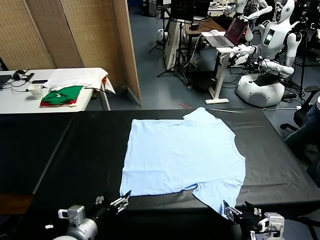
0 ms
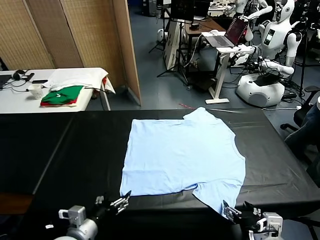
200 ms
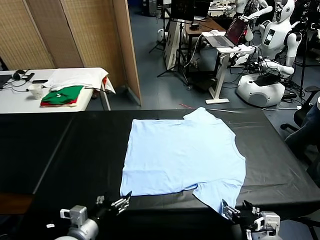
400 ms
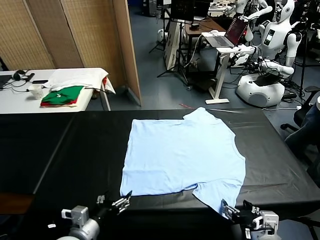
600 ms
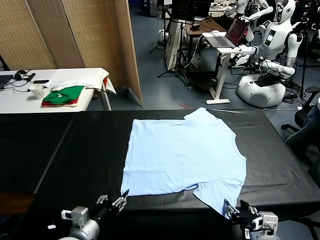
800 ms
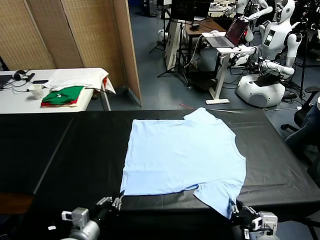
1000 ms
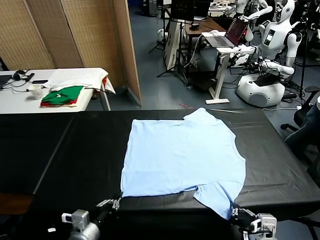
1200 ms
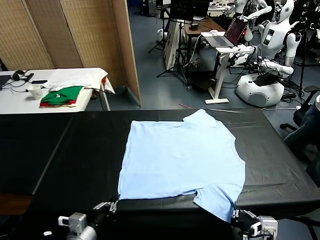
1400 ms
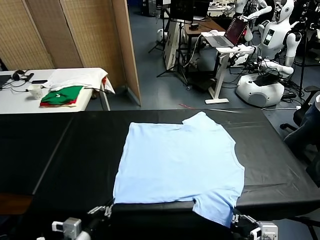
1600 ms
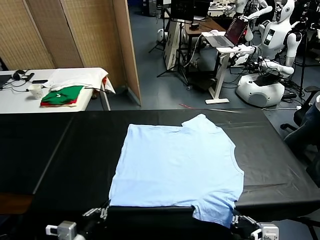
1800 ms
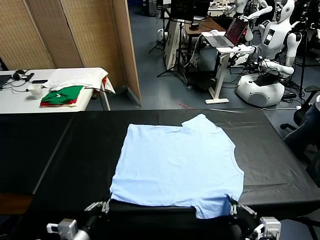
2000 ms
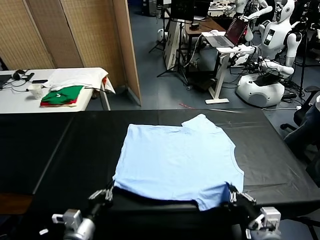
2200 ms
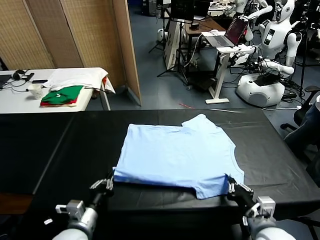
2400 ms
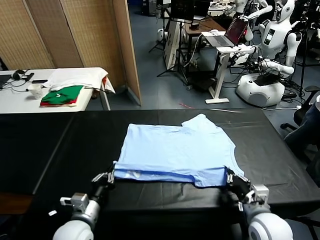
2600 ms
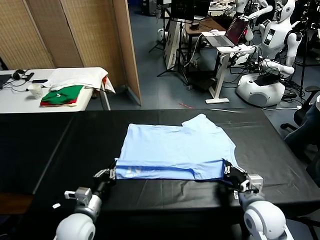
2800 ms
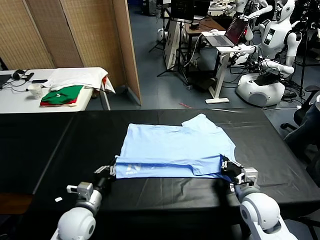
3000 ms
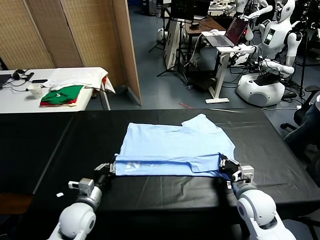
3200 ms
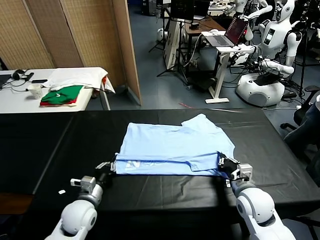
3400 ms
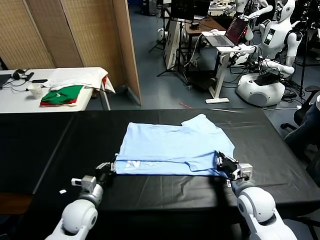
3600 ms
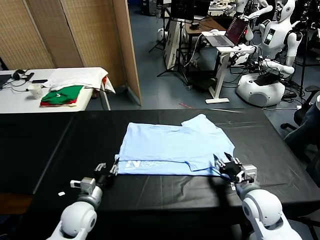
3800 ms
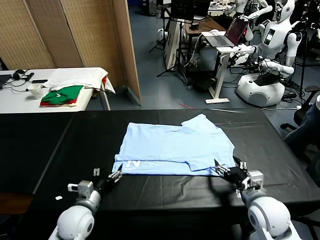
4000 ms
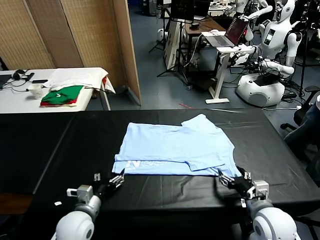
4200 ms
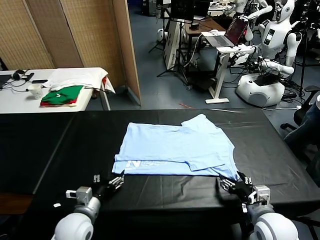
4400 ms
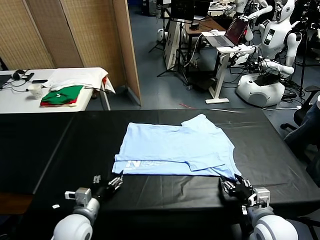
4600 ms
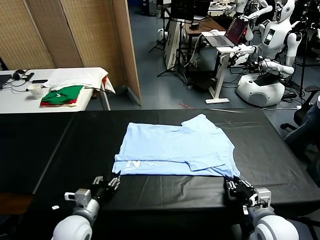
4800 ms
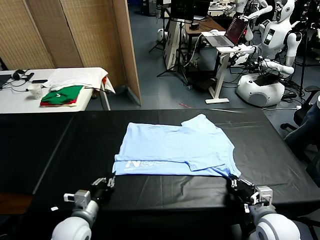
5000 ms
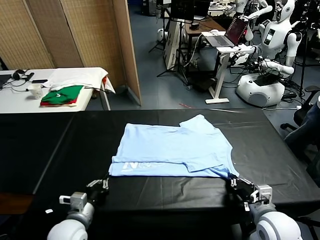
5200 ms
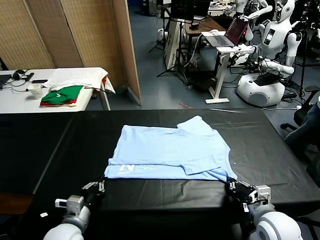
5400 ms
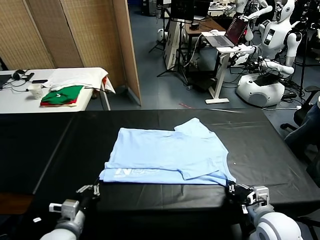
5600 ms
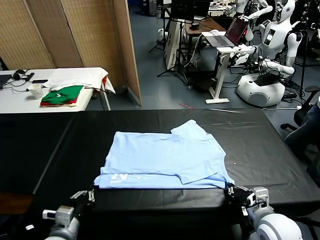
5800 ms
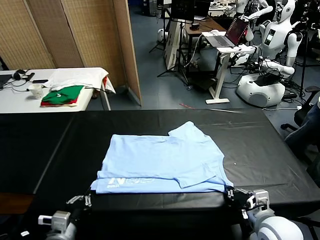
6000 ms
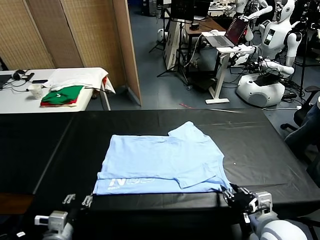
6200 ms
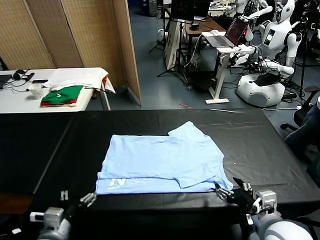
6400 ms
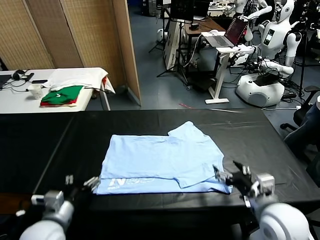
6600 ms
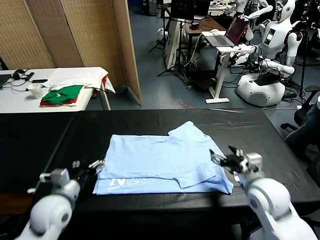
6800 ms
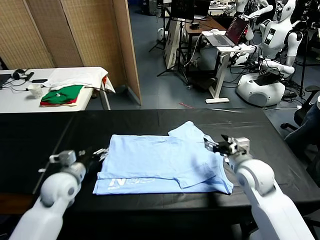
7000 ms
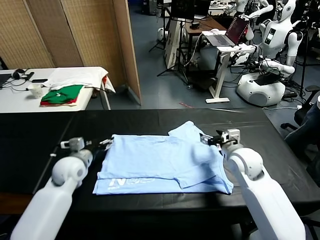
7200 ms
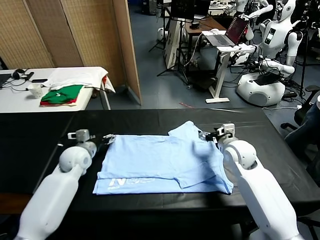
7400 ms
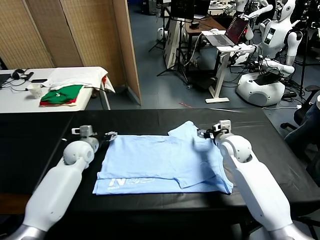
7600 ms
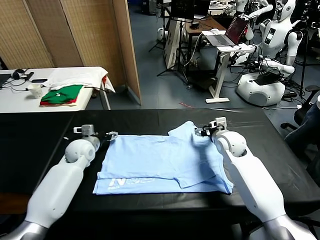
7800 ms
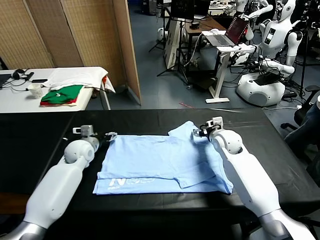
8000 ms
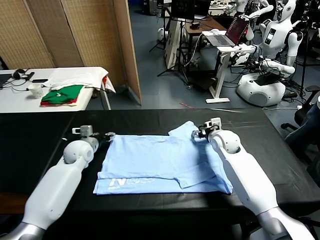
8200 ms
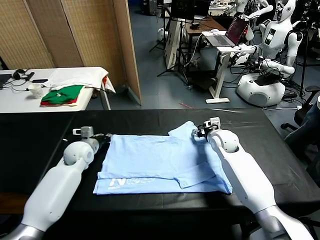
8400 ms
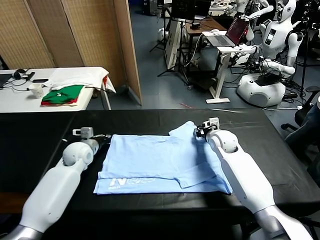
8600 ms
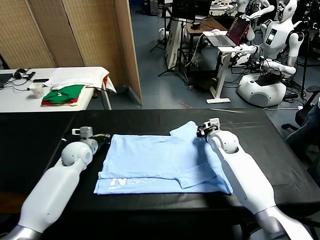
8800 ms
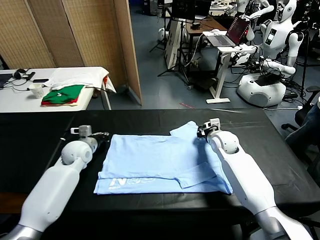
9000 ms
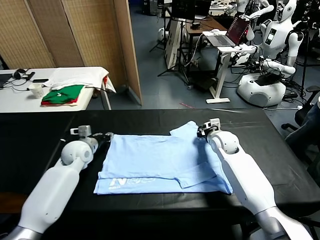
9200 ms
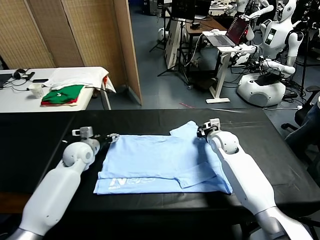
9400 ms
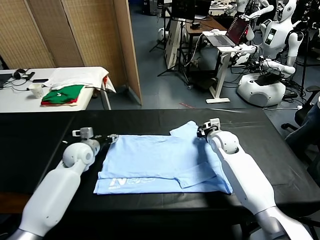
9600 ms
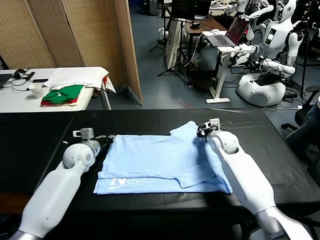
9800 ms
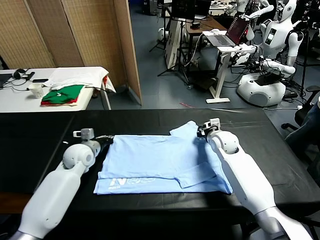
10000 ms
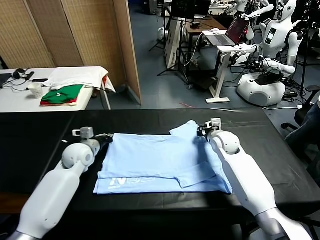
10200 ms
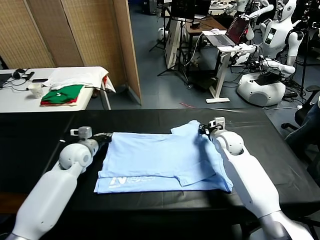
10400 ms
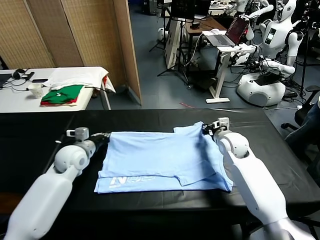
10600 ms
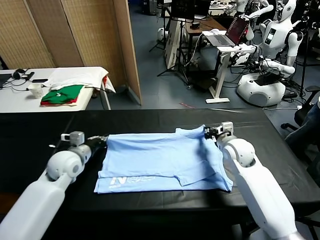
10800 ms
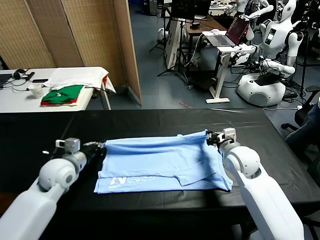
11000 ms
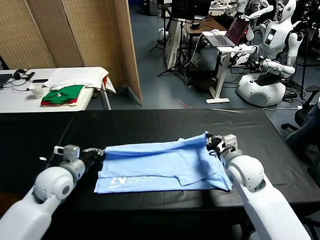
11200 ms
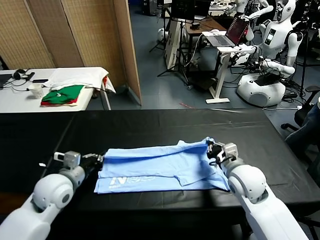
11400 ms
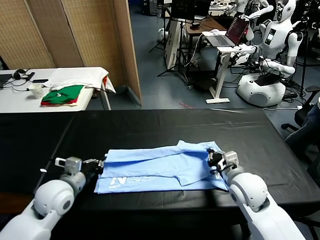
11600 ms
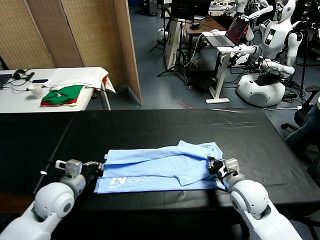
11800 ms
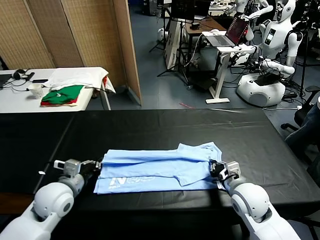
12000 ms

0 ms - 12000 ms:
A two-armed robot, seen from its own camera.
Task of the whole recording: fold and organize the clothes.
Step, 0 ms - 1000 ms: use both grippers simultaneously to clamp the lower edge of the clothing fabric.
Step, 1200 ms - 3600 ms: use both grippers to drag the lower edge of the fabric forward and fold it over the upper edge.
Step, 4000 ms - 6200 ms: Drag the clothes downward with both gripper.
Step, 6400 ms - 8600 ms: use both grippers simultaneously to clamp the upper edge of the clothing fabric.
1600 ms - 3000 ms: Both grippers move forward, roughly 15 cm.
3000 ms - 4400 ms: The left gripper opens its fingers. The right gripper travels backward by about 10 cm, and opens its fingers.
4400 ms - 6000 ms: The left gripper shifts roughly 10 cm backward, and closes, then reopens. Meanwhile the right gripper goes some 5 cm upward, and closes and opens again.
6000 ms - 7600 ms: Both grippers move forward, some 30 cm. The left gripper opens its fingers.
7600 ms - 9000 ms: The left gripper closes. The right gripper closes.
9000 ms - 10400 ms: The left gripper closes, while the right gripper moves about 5 cm.
10400 ms - 12000 ms: The grippers both shift backward by about 15 cm.

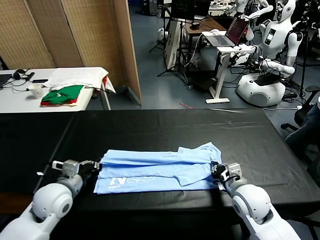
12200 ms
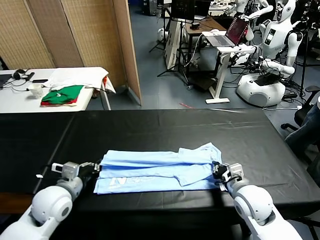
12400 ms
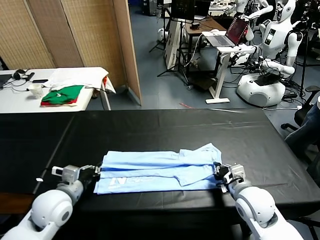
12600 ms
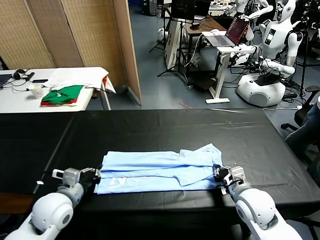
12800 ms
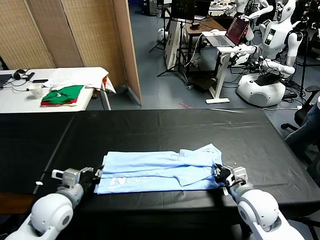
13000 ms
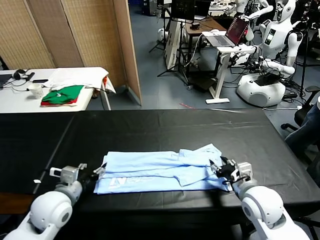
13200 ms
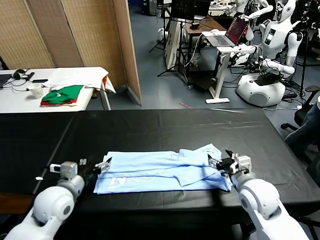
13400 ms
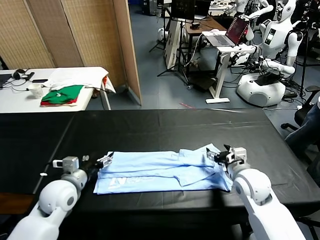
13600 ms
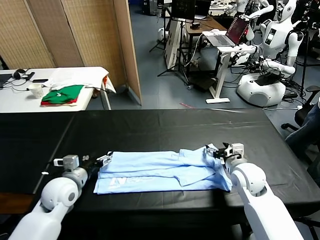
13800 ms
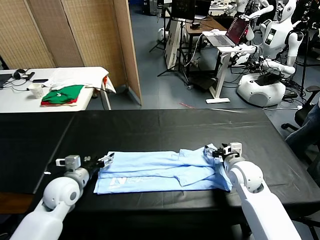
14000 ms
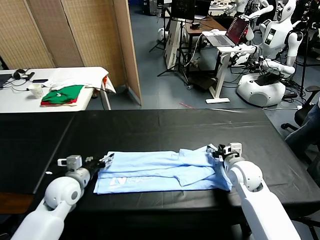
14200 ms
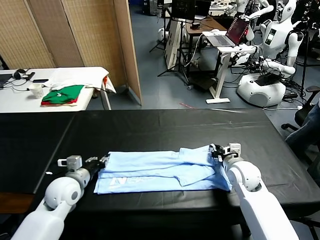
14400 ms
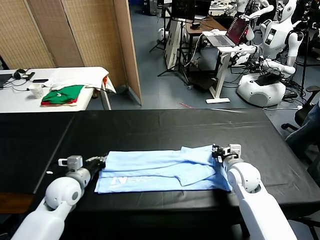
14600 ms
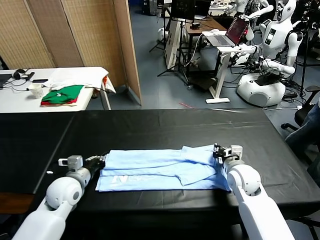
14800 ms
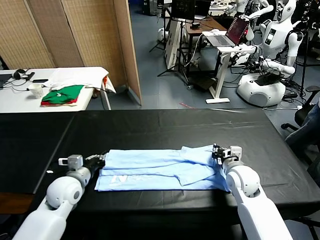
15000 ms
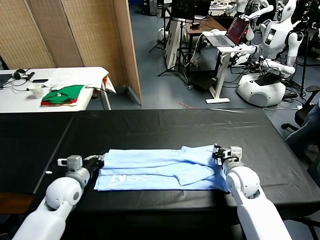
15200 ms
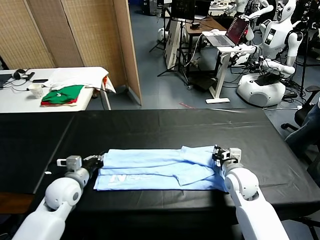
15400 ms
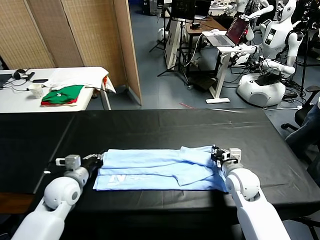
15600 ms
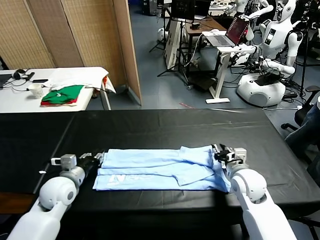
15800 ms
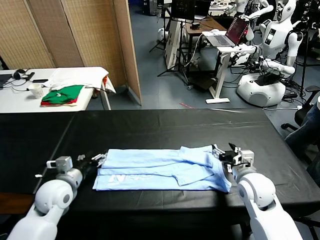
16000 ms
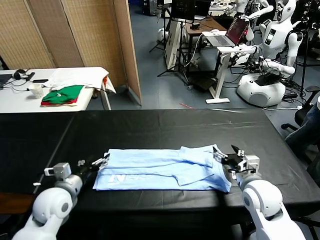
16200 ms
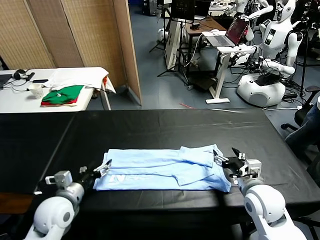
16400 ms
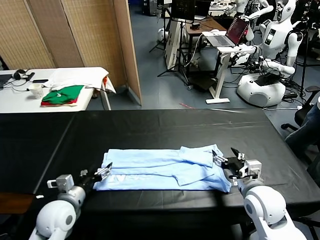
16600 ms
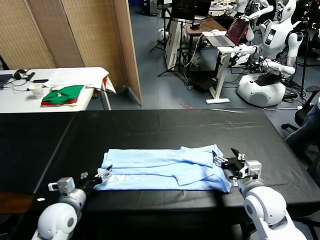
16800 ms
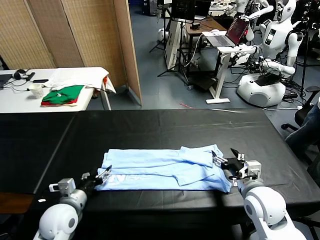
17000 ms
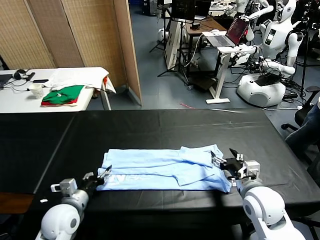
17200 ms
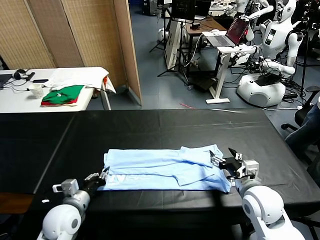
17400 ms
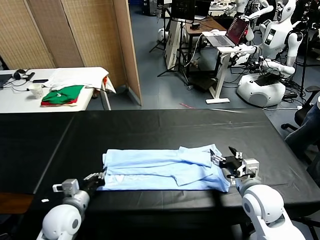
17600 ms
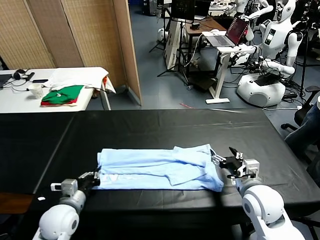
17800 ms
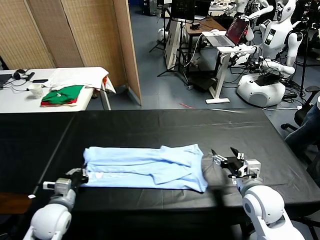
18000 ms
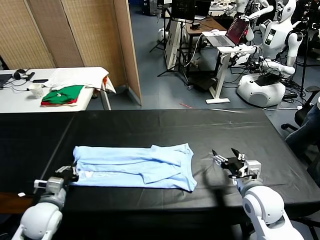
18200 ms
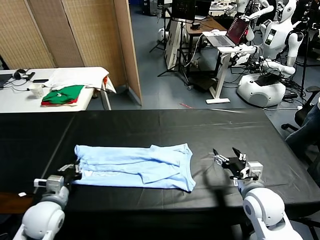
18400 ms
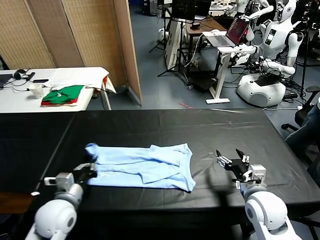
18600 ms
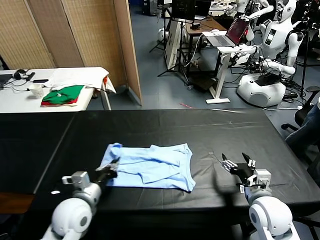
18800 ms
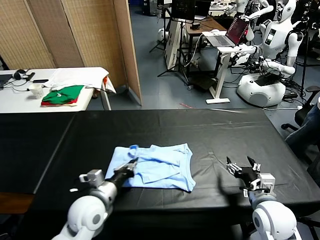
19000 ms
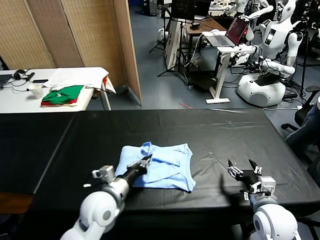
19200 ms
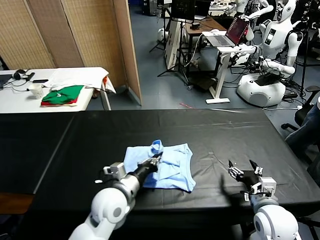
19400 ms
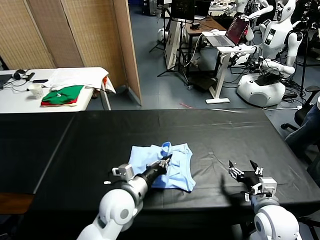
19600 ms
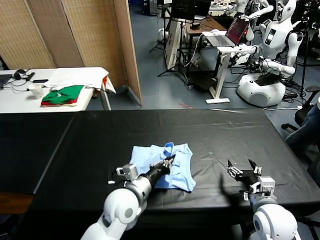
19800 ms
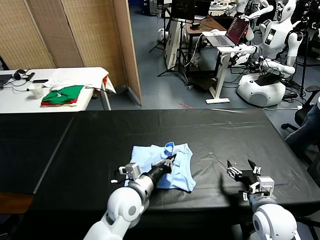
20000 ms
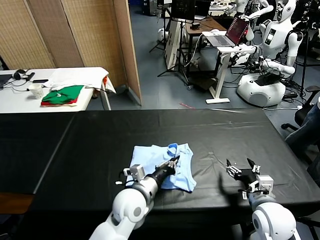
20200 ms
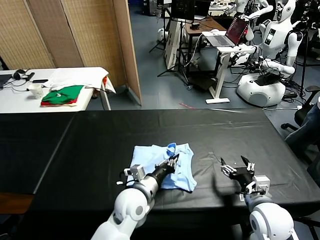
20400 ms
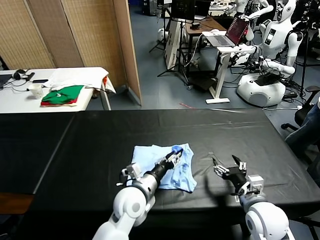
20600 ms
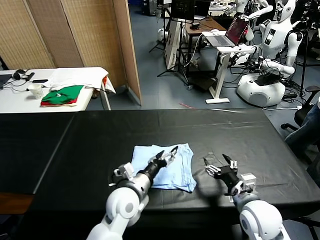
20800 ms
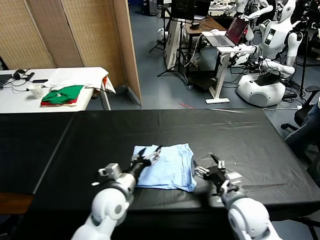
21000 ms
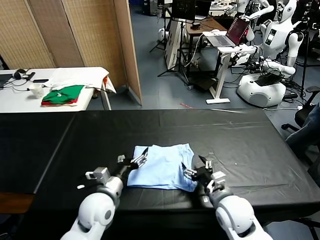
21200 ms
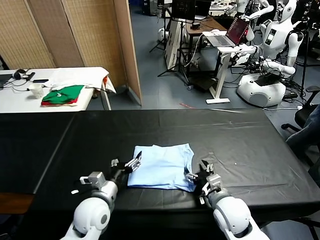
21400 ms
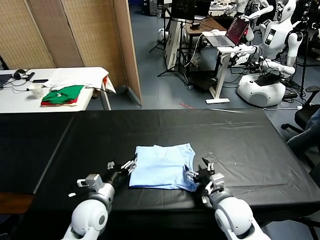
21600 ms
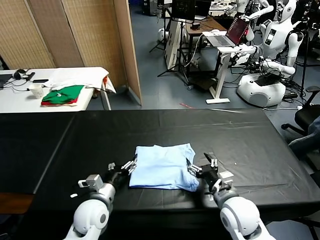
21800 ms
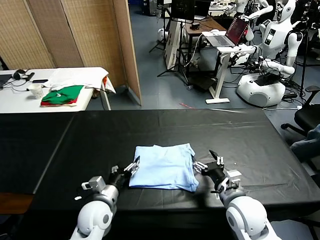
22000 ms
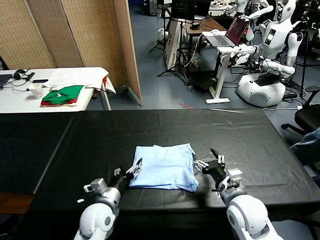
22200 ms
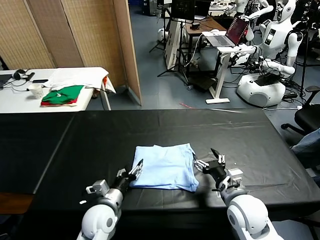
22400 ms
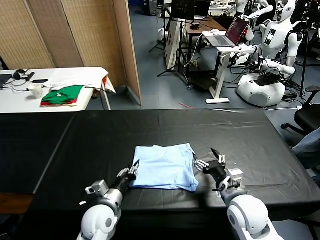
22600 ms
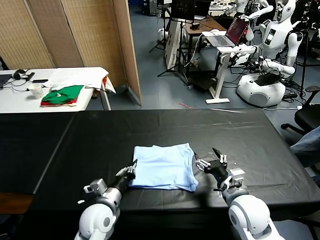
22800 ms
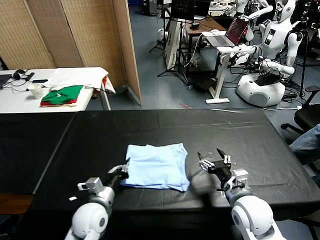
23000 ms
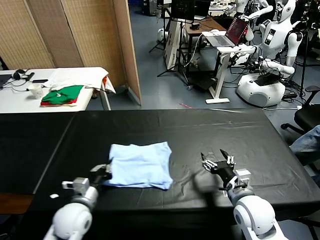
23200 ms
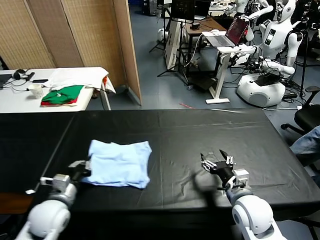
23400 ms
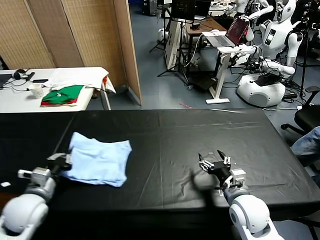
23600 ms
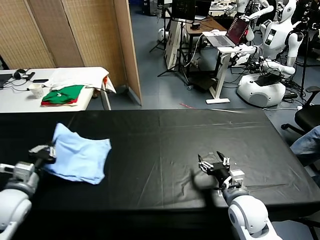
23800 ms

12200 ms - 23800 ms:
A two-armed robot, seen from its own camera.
Task of the whole recording: fold and organize the clothes.
Step, 13200 ms - 17400 ms: use the left gripper to clamp the left edge of the fabric.
Step, 17800 ms - 20600 ms: use the left gripper to drag the left edge of the fabric to the left and folds it over the right edge.
12200 ms - 13600 ms: The left gripper opens its fingers; the right gripper moves forward, roughly 10 cm, and opens its fingers.
13600 ms - 15000 ms: The left gripper closes its fingers, while the right gripper closes.
15000 ms - 16600 ms: The grippers both shift backward by approximately 10 cm. The left gripper opens. Meanwhile the right gripper opens up.
16600 ms - 18000 ms: The left gripper closes.
18000 ms - 19400 ms: The left gripper goes some 20 cm to the right; the right gripper shifts by some 5 cm.
19400 ms - 21000 ms: The right gripper shifts approximately 10 cm to the left; the left gripper opens up.
21000 ms - 22400 ms: The left gripper shifts approximately 5 cm downward.
22400 ms - 23800 ms: The left gripper heads to the left and upward, covering roughly 25 cm, and closes up.
